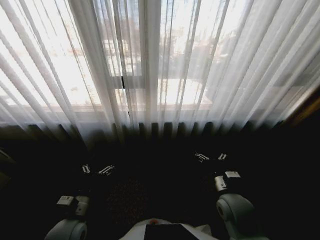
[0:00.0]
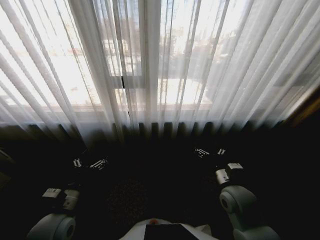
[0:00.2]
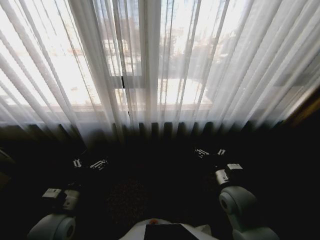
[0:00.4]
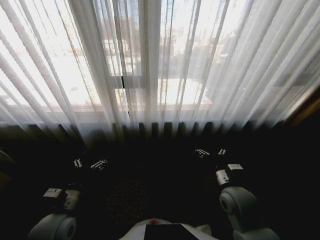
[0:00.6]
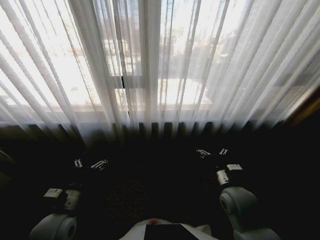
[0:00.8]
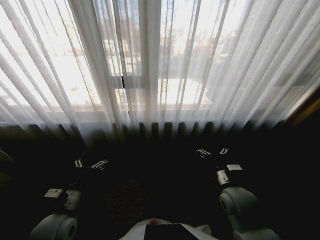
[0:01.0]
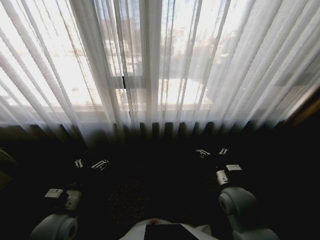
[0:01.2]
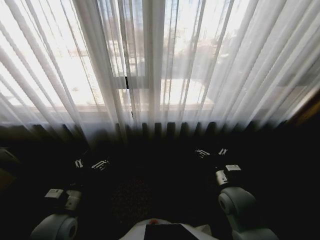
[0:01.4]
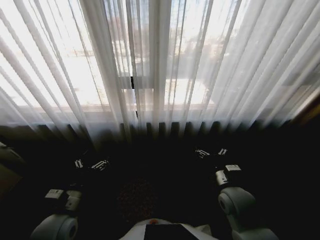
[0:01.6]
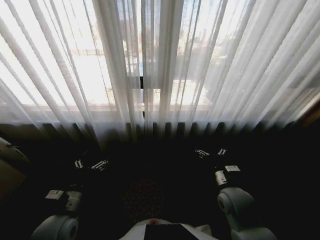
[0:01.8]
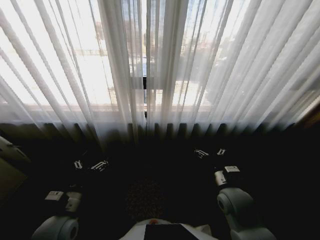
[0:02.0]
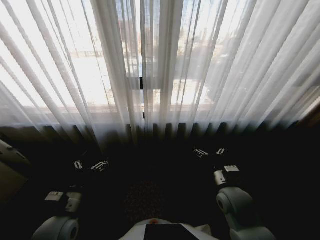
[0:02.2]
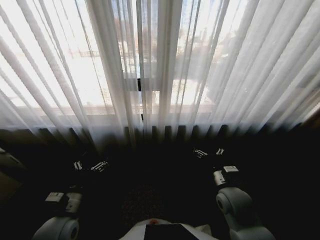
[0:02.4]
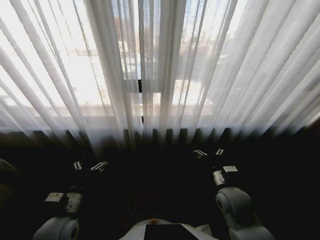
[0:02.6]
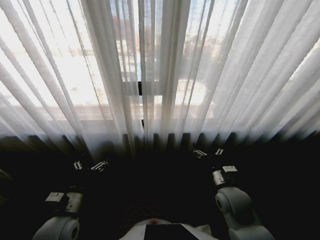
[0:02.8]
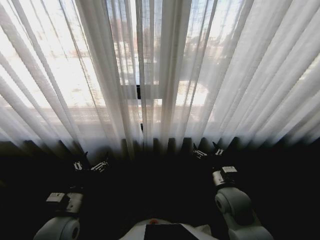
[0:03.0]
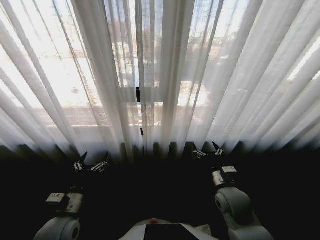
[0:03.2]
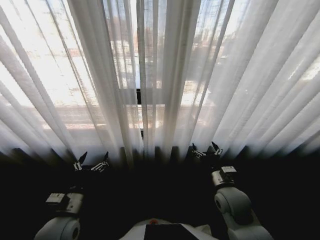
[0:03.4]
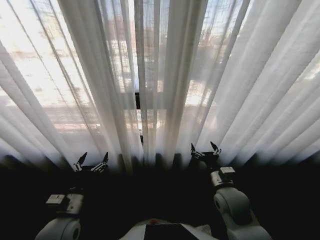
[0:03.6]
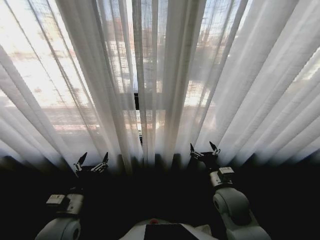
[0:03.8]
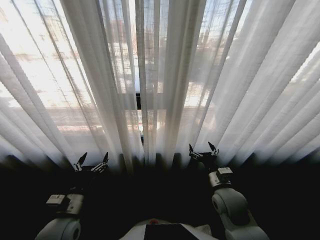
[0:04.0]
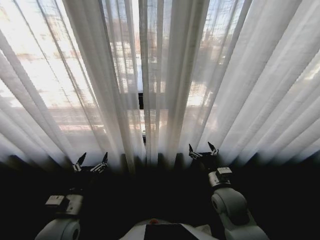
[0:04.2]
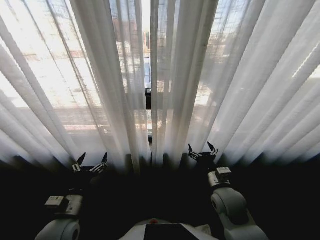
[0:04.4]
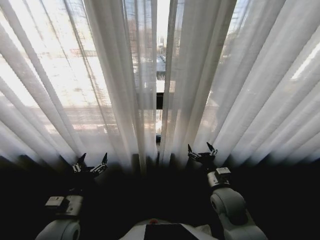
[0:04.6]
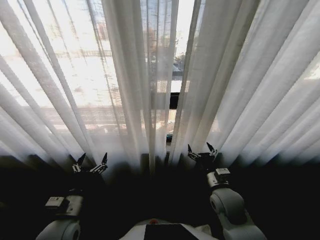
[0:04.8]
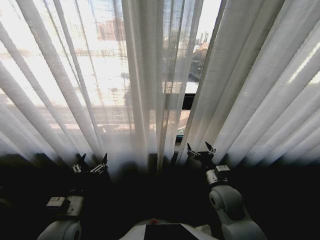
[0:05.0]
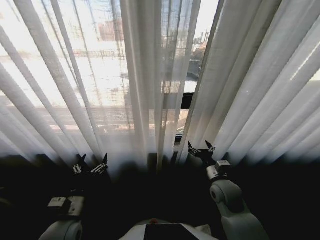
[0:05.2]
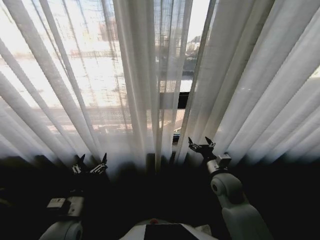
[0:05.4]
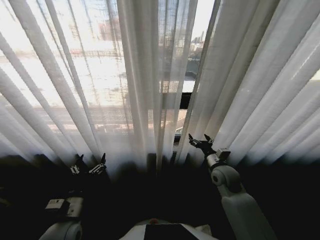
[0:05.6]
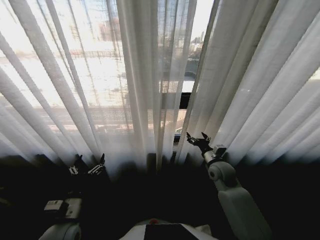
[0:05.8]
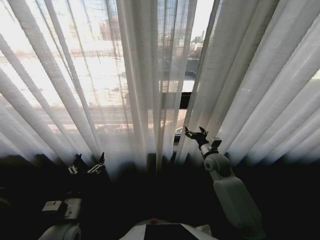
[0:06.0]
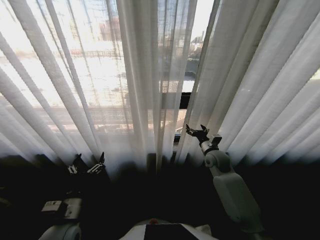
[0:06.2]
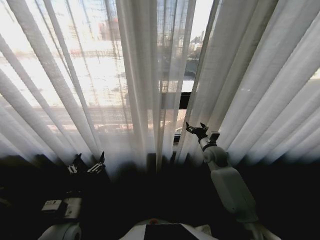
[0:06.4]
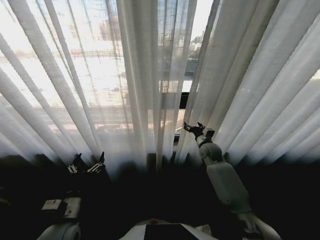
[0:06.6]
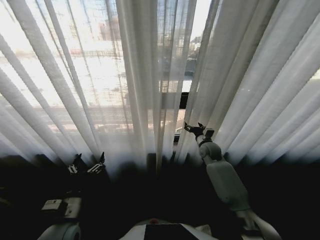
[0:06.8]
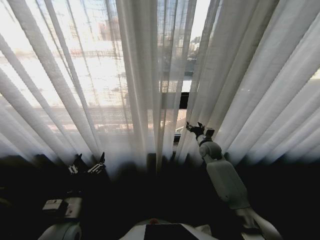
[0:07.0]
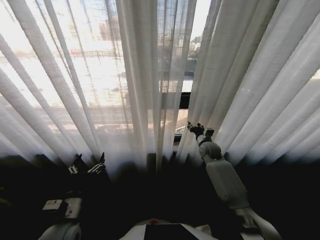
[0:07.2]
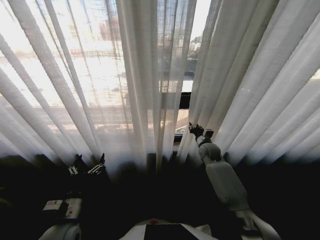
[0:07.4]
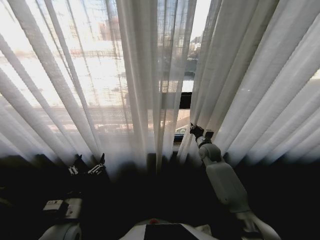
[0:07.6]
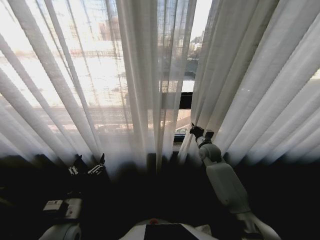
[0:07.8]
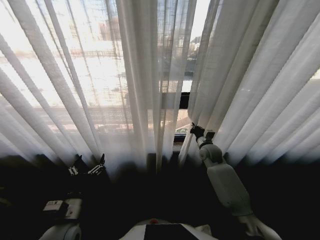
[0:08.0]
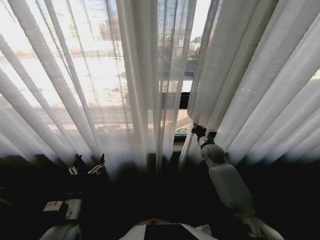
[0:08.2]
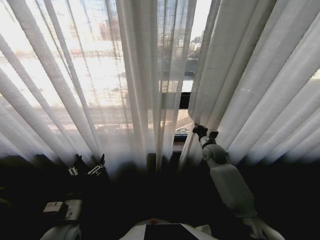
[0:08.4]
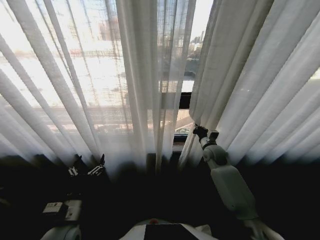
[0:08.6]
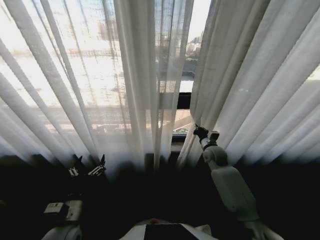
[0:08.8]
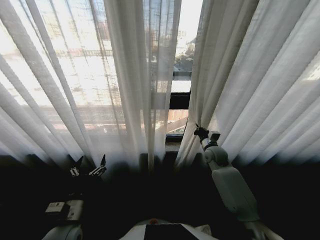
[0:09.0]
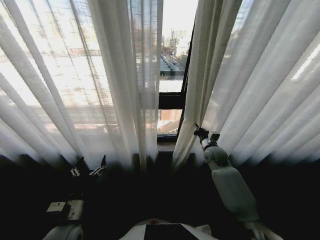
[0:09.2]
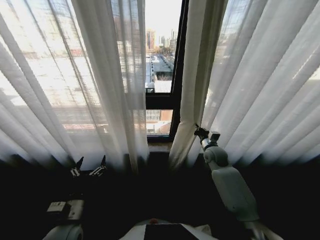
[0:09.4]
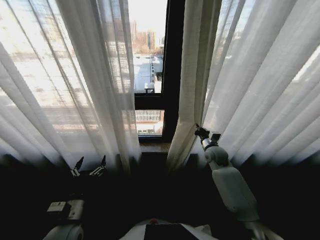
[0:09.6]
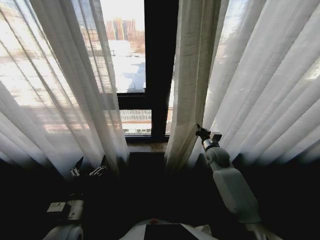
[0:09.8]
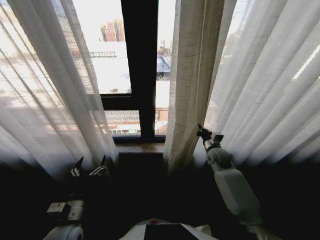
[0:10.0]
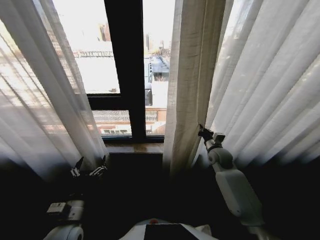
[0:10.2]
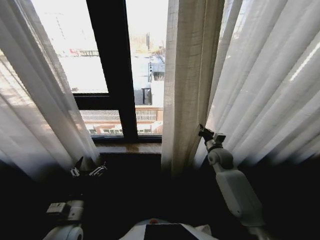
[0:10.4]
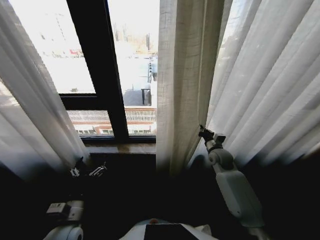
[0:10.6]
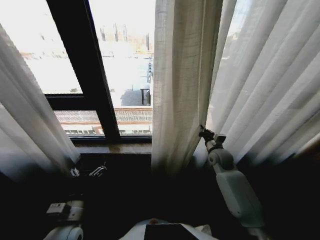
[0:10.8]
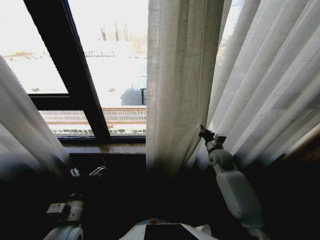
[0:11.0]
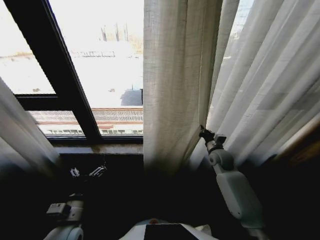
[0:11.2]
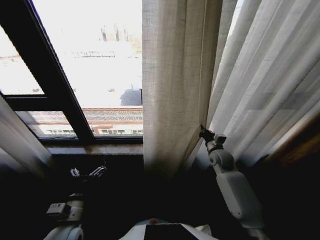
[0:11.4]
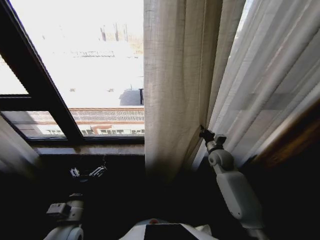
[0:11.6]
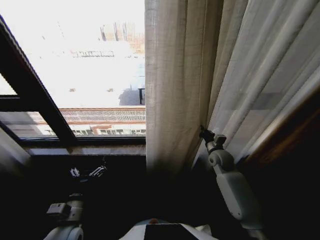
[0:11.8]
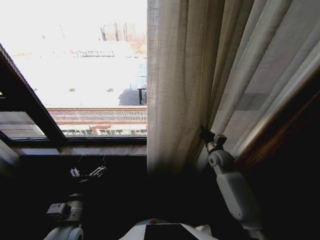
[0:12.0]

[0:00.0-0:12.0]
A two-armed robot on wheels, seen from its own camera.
Task of the whole recording: Open the curtains by pulling them apart, changing their state from closed to fully open.
0:04.4 to 0:06.0: The right gripper travels forward by roughly 15 cm.
0:06.0 to 0:07.6: The right gripper moves forward, about 10 cm, and closes up.

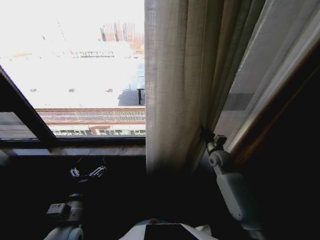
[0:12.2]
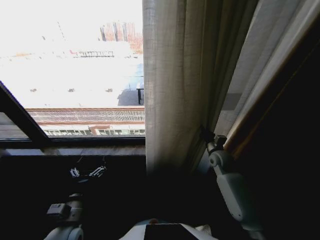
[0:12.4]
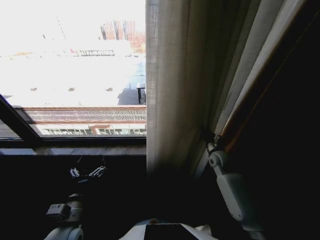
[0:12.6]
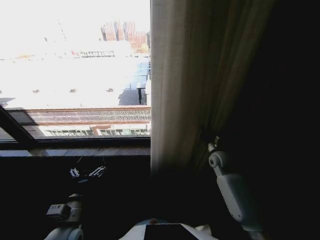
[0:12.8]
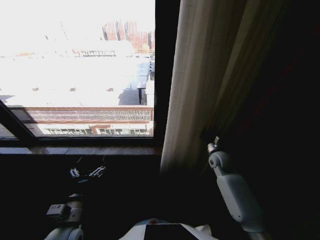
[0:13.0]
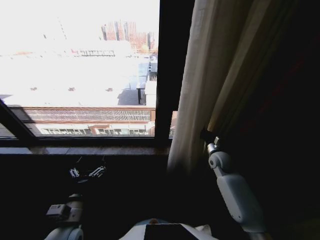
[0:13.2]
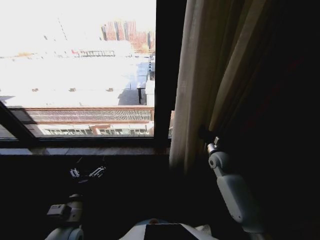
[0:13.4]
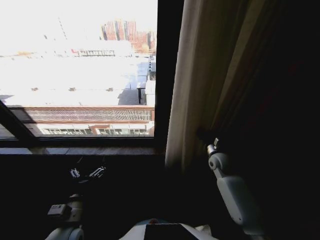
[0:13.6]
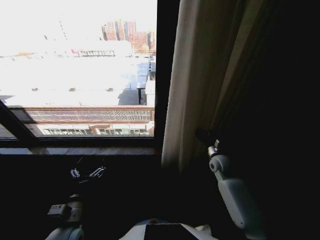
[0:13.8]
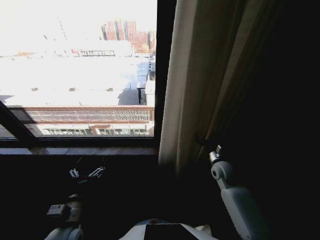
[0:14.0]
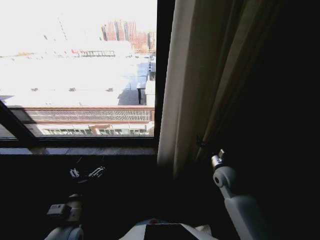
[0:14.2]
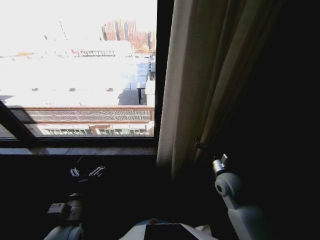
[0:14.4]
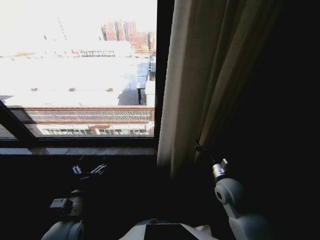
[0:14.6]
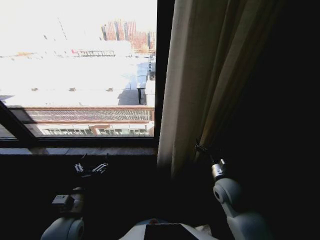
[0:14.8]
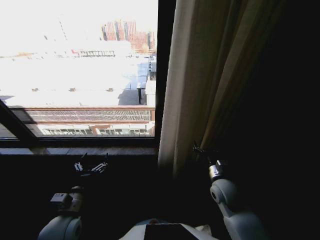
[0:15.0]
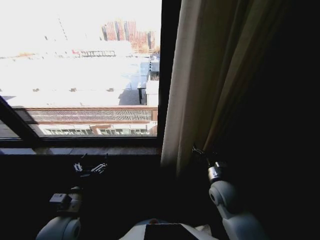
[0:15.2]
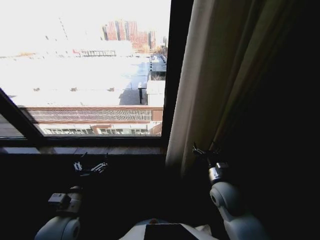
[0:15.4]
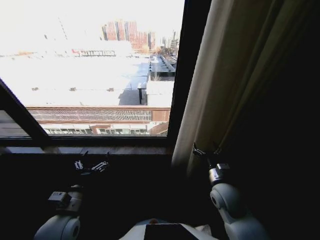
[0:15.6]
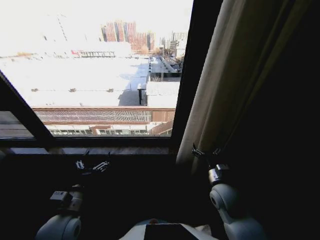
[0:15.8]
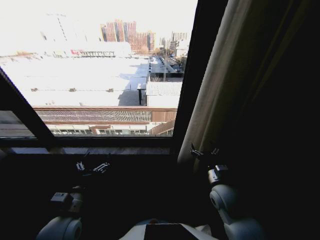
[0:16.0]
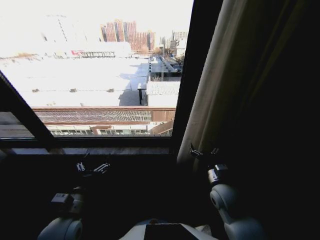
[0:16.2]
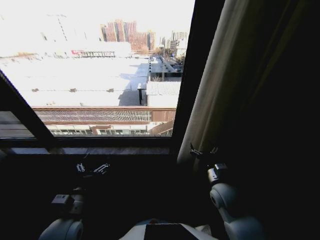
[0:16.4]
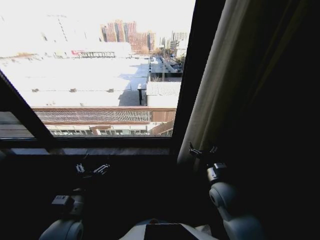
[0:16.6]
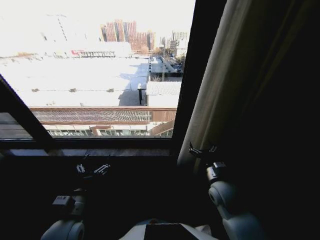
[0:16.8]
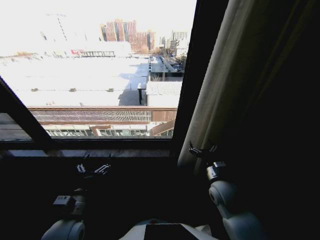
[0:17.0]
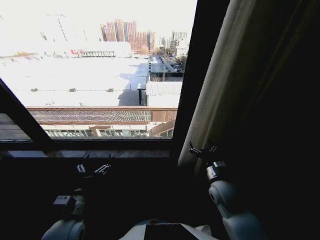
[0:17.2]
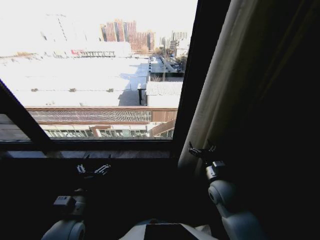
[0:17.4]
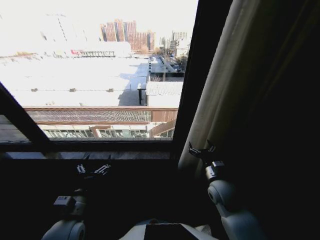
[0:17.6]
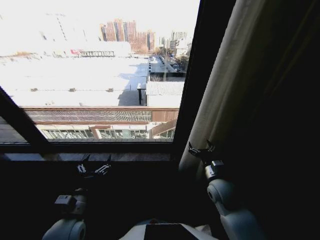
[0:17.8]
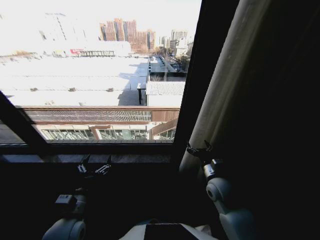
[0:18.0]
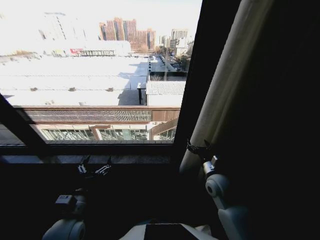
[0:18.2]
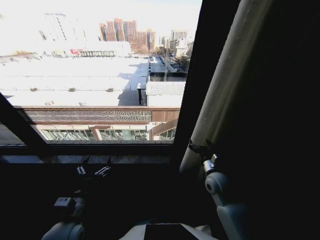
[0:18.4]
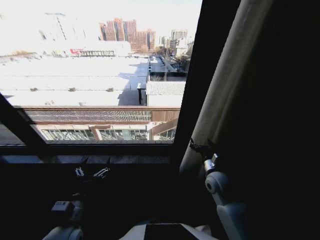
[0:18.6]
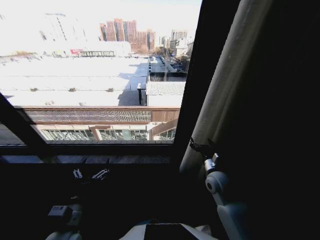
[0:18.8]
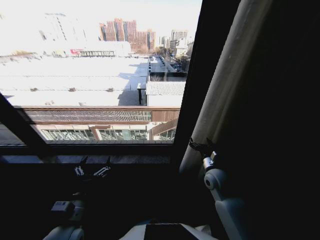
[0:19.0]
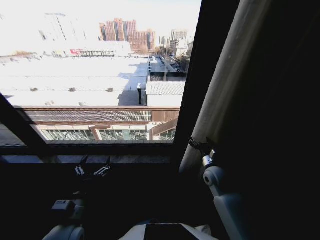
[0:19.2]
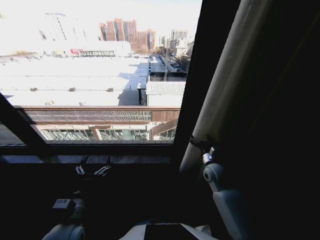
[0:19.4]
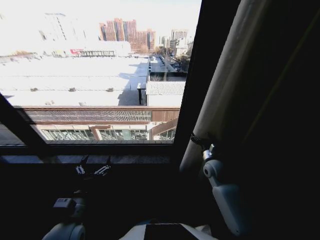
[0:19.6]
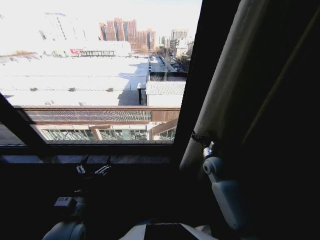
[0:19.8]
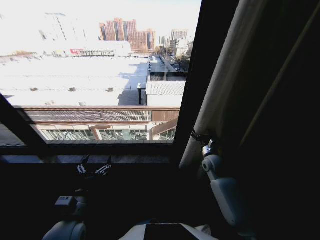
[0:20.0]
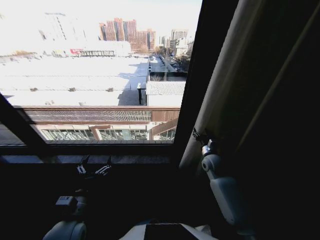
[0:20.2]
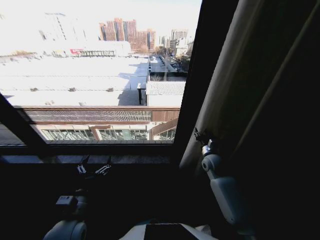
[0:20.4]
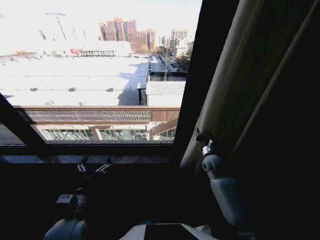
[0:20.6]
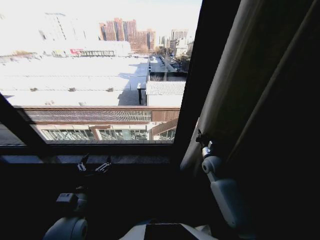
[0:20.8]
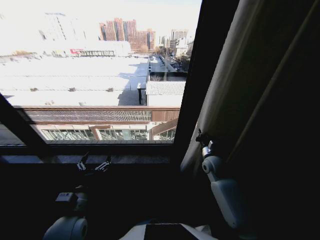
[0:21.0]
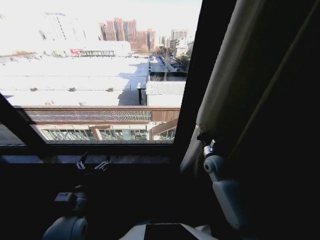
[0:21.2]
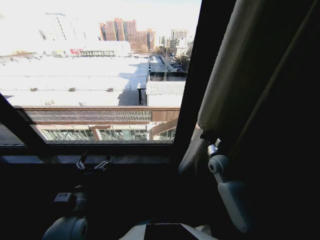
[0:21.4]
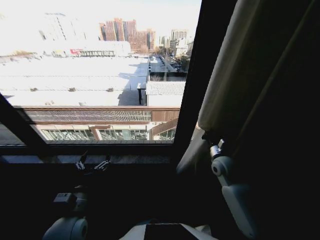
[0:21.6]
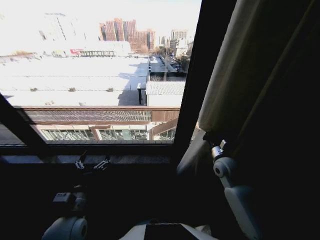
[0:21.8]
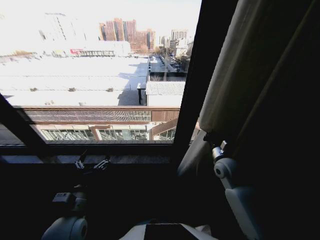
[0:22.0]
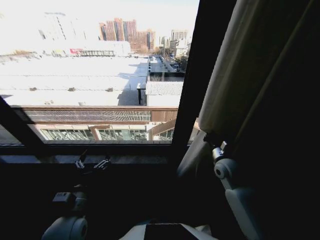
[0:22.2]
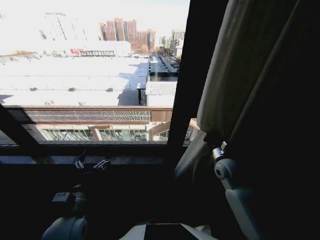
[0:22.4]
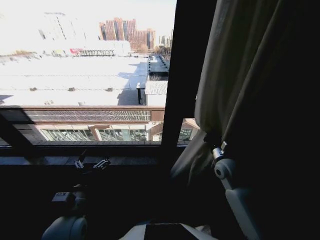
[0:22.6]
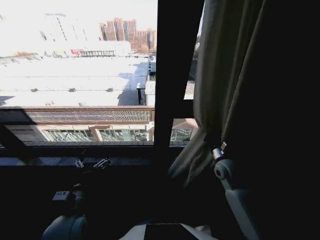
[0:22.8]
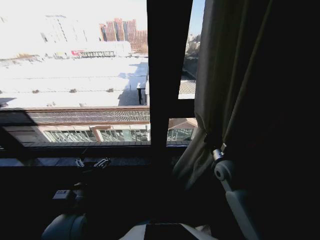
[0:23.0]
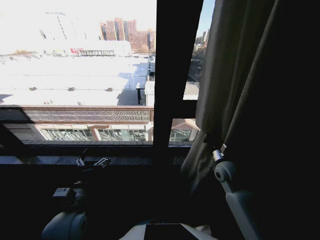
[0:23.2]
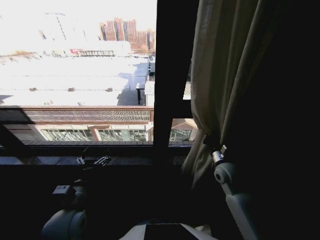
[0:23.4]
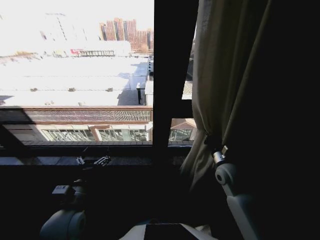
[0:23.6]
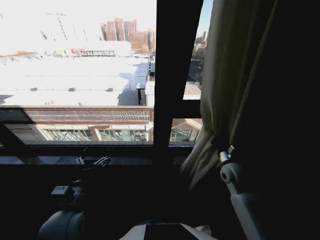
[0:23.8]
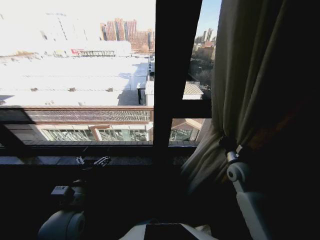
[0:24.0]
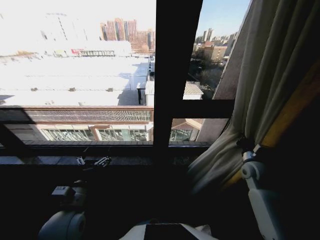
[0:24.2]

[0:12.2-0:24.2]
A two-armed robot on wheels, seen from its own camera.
Task of the whole recording: Open the curtains by pulling them apart, changing their state from closed to fully open.
0:12.2 to 0:13.8: The right gripper opens.
0:13.8 to 0:15.2: The right gripper moves backward and to the left, roughly 15 cm.
0:16.6 to 0:18.2: The grippers make only small movements.
0:18.2 to 0:19.8: The right gripper is displaced forward by roughly 10 cm.
0:19.8 to 0:21.2: The right gripper closes.
0:21.2 to 0:22.6: The right gripper changes place by about 5 cm.
0:22.6 to 0:24.2: The right gripper shifts about 10 cm to the right.
